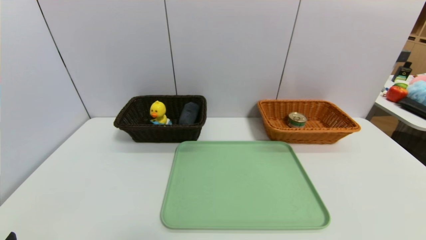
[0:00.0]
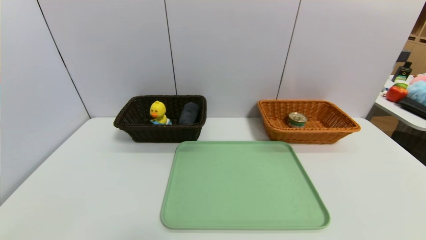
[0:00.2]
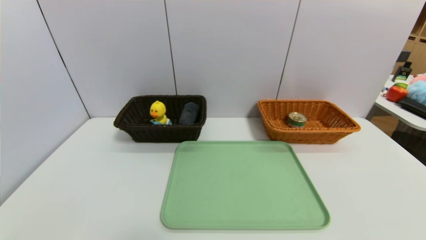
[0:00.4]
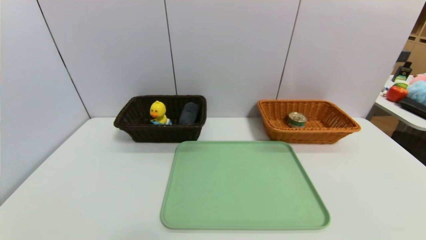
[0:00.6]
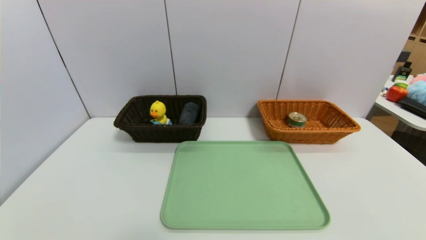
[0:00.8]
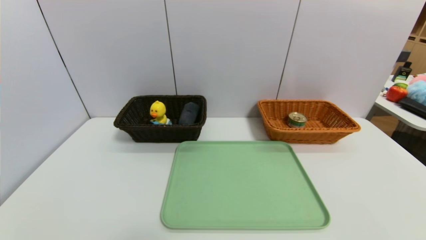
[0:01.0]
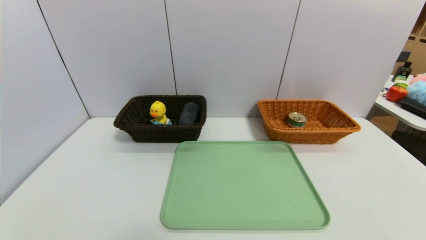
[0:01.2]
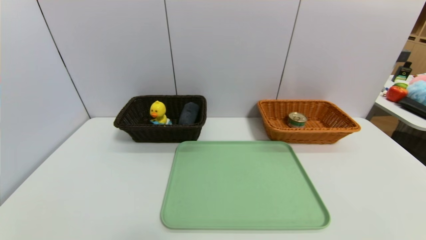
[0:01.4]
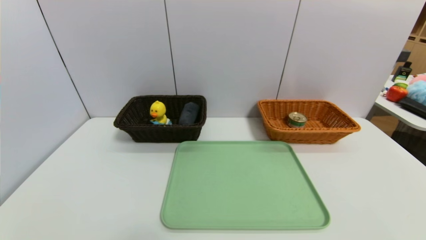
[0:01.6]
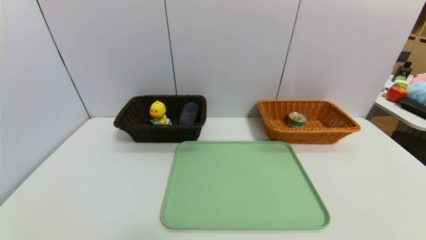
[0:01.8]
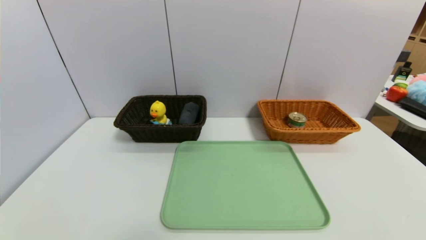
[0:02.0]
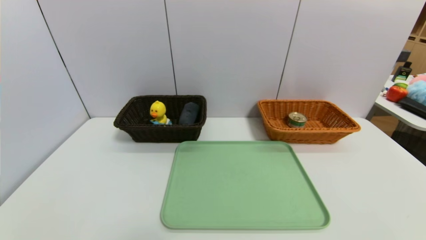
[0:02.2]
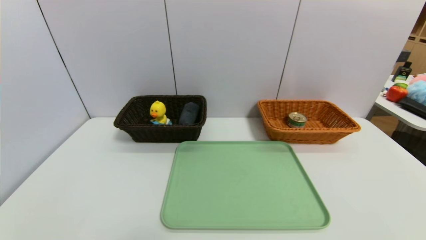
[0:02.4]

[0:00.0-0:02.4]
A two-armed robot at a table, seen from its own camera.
Task of the whole recording: place the food in the right basket with the right gripper, and place the non food items in the left basket with the left gripper.
0:01.2 to 0:02.4: The two grippers keep their place.
